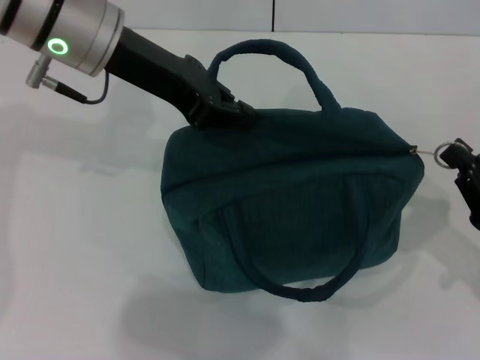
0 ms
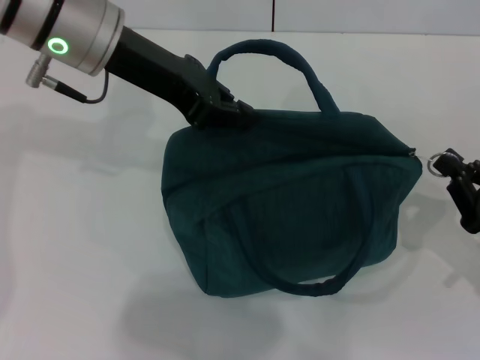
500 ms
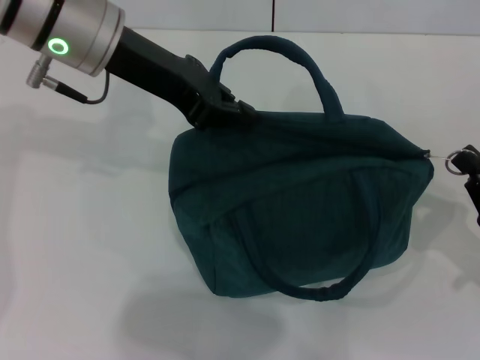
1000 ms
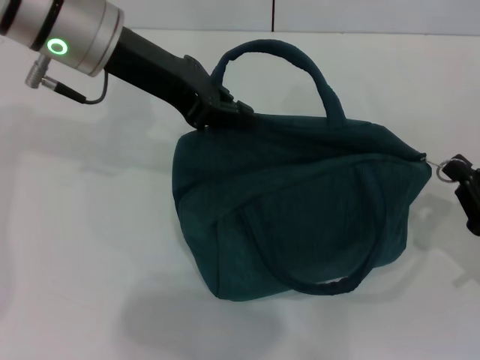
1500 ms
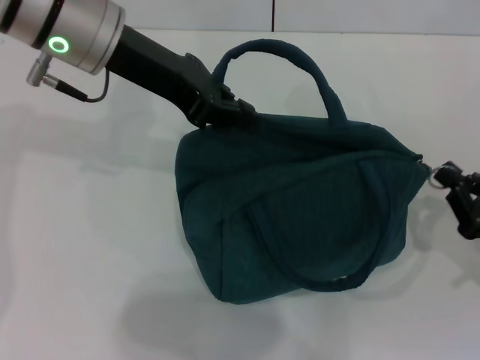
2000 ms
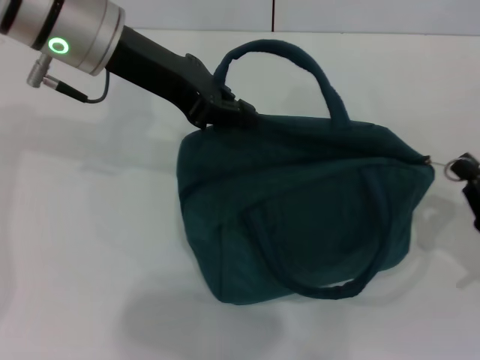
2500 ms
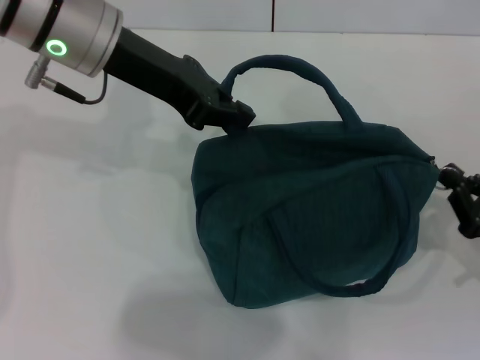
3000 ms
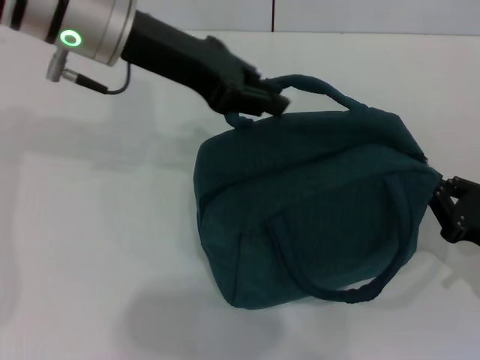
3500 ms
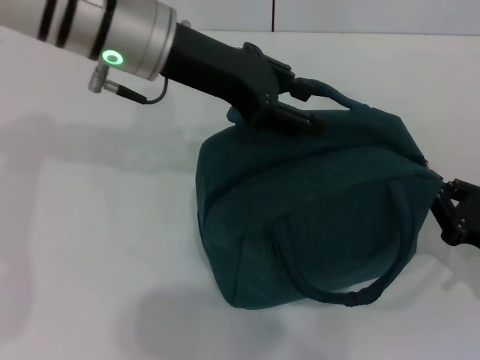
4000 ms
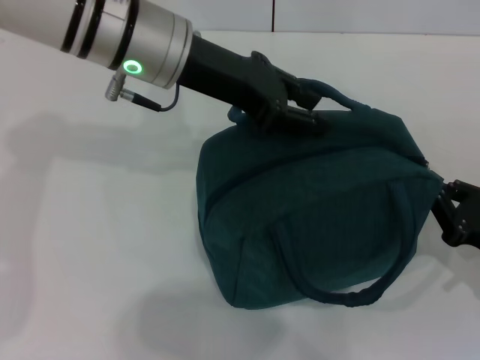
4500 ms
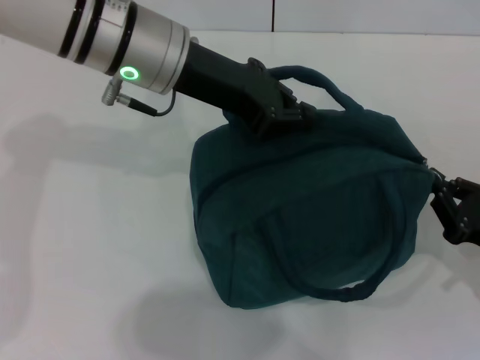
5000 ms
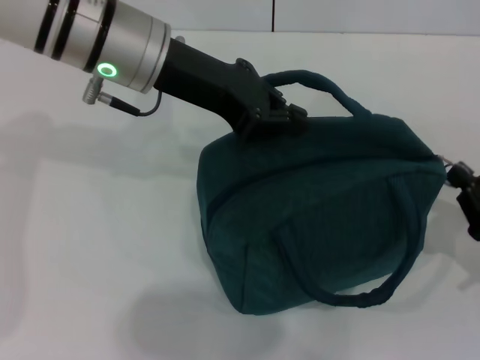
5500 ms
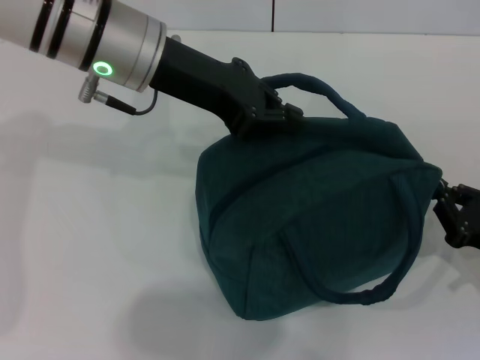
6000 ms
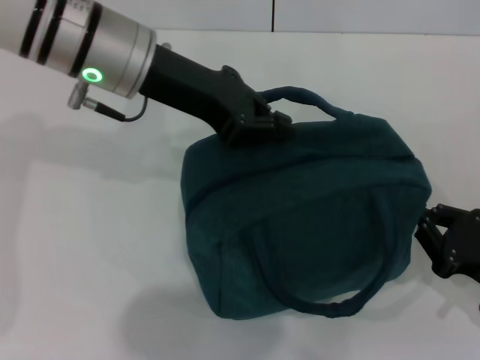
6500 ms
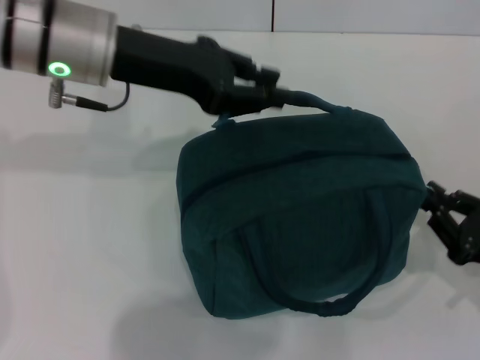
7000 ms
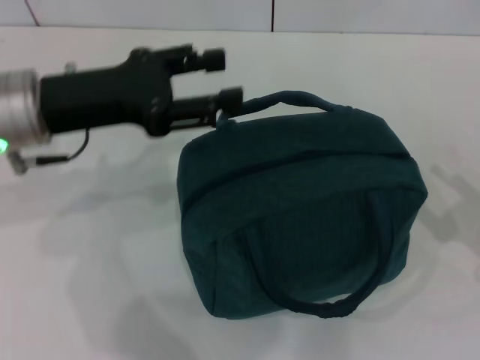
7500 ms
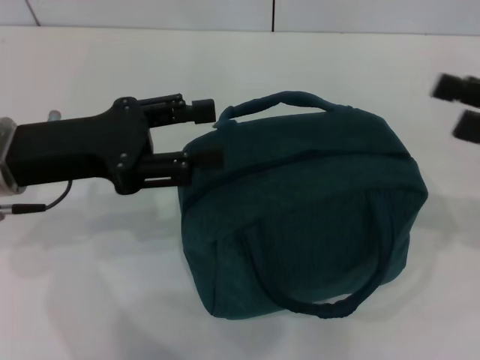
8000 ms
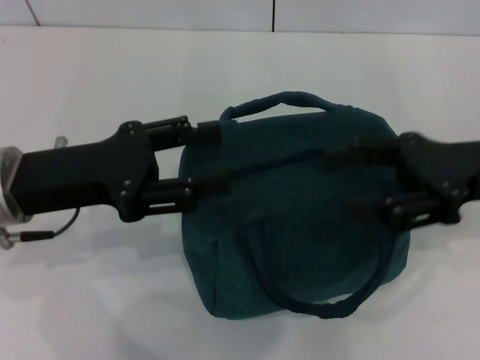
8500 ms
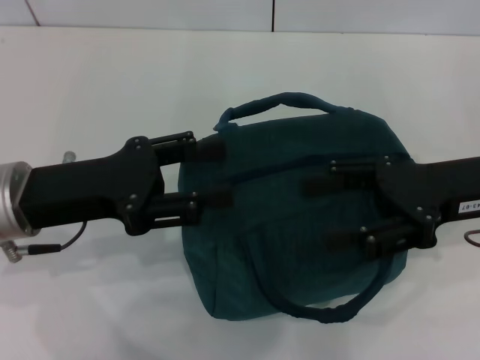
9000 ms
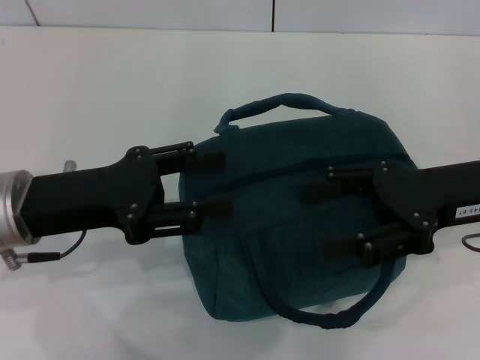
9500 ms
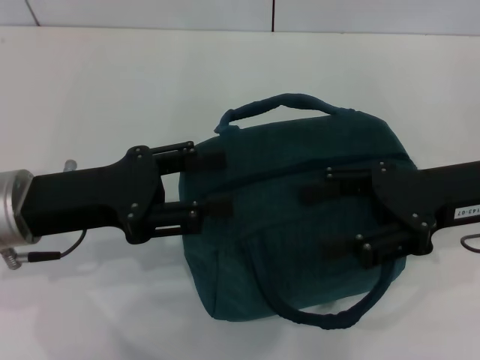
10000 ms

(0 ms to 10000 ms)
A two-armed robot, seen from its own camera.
Step, 0 ms - 6500 ms: Hold the lunch bag with your left hand.
0 ms - 2000 ms: The grippers make only small movements.
2000 ms - 4000 ms: The left gripper opens up.
4000 ms - 6000 ms: The left gripper closes.
6000 ms - 8000 ms: The left gripper shifts some 15 cm to the left, backward and downward, and opens up. Meanwhile the right gripper travels upward and forward by some 15 cm, and opens.
8000 ms - 10000 ms: The right gripper moves to the left, some 10 cm.
